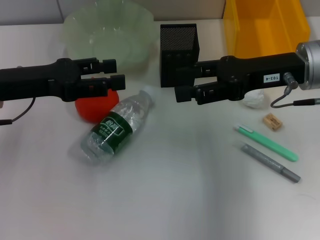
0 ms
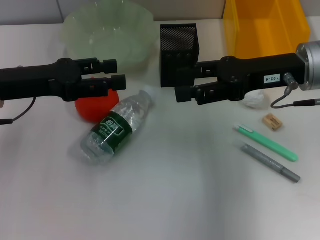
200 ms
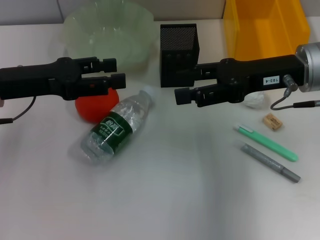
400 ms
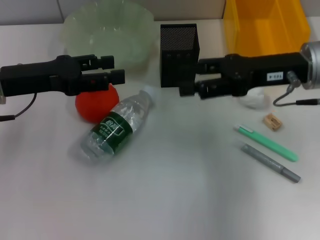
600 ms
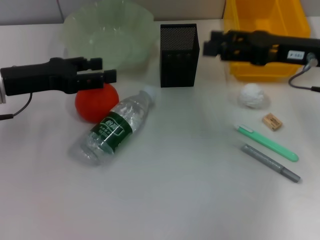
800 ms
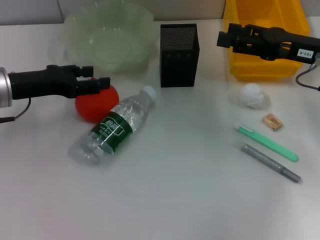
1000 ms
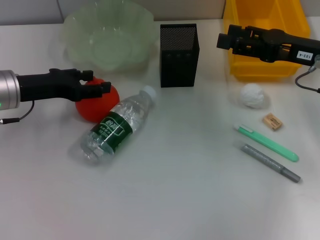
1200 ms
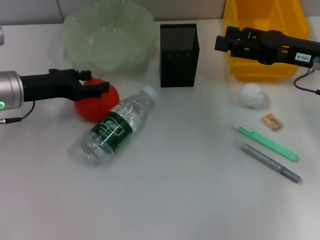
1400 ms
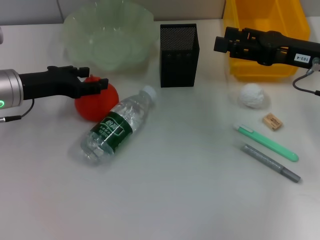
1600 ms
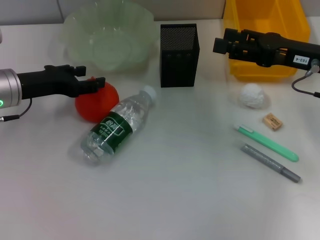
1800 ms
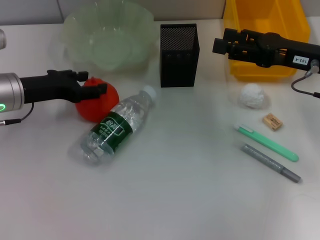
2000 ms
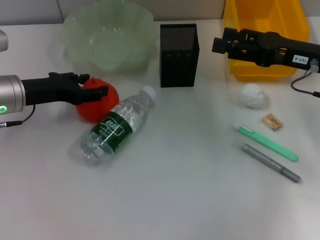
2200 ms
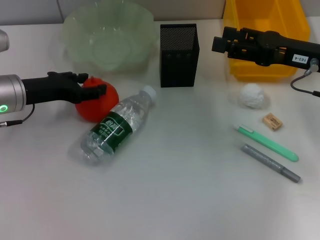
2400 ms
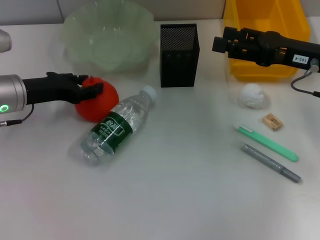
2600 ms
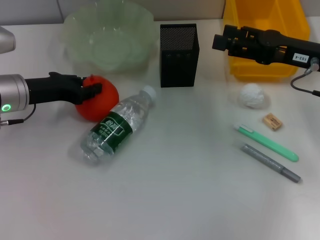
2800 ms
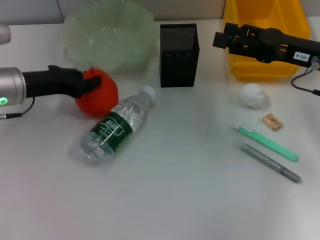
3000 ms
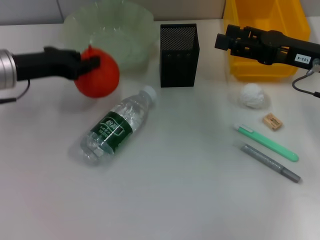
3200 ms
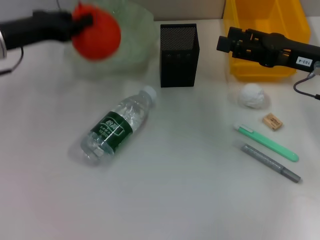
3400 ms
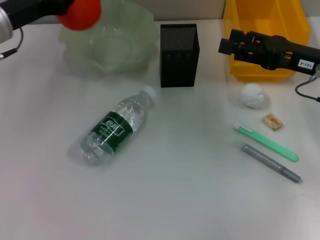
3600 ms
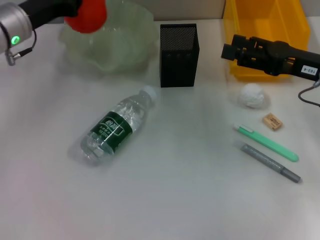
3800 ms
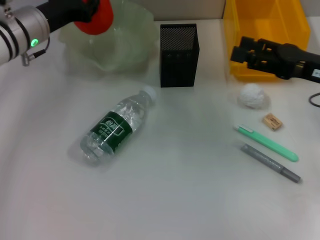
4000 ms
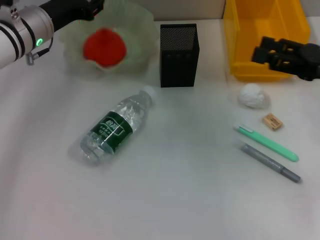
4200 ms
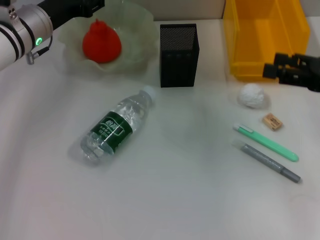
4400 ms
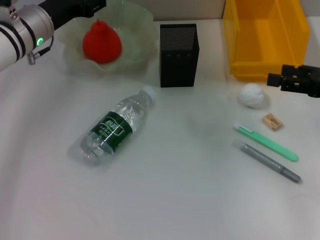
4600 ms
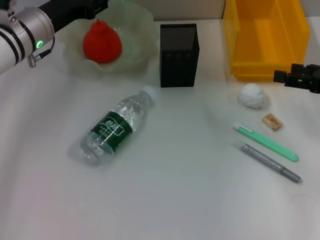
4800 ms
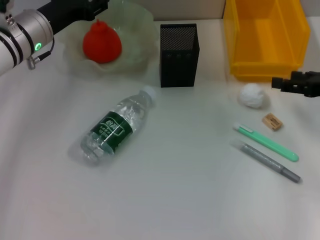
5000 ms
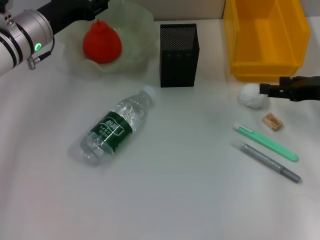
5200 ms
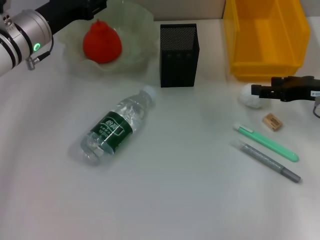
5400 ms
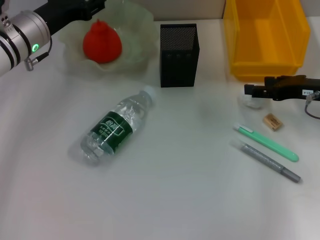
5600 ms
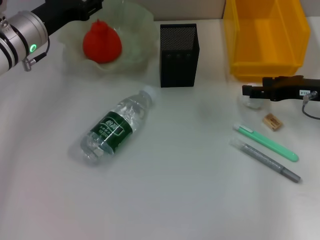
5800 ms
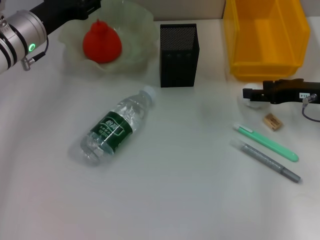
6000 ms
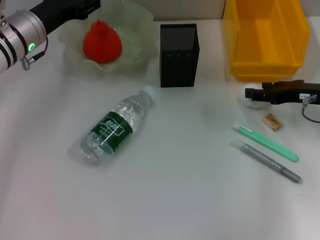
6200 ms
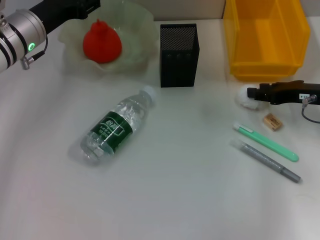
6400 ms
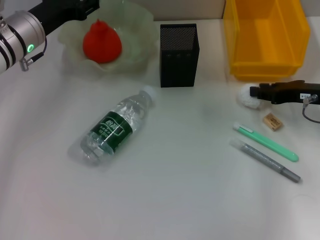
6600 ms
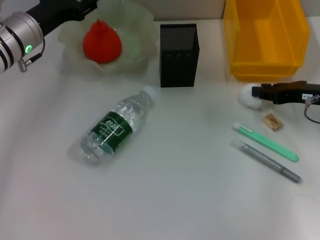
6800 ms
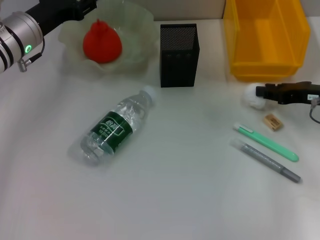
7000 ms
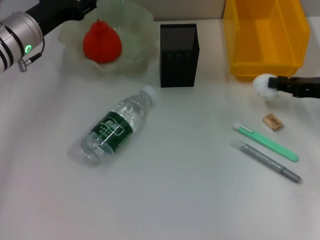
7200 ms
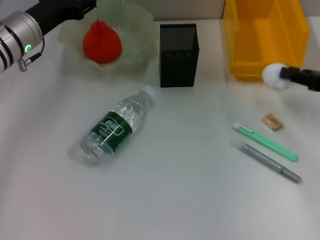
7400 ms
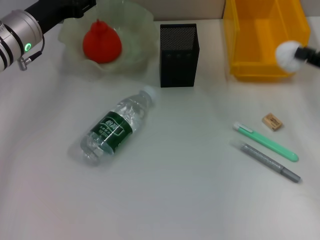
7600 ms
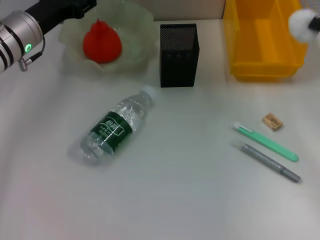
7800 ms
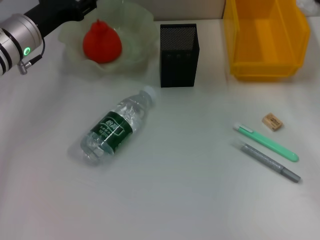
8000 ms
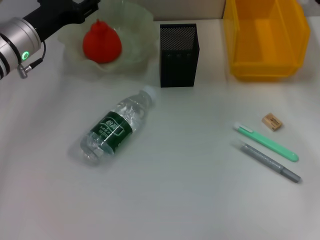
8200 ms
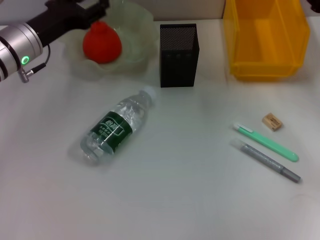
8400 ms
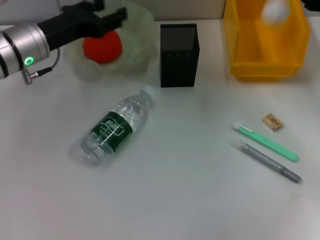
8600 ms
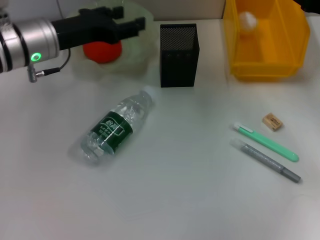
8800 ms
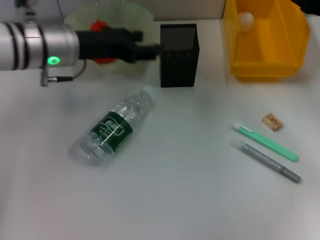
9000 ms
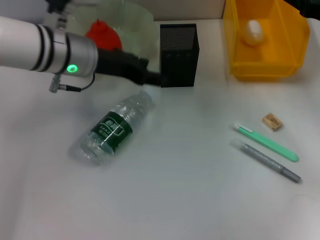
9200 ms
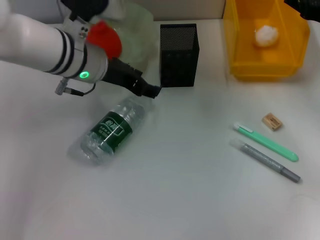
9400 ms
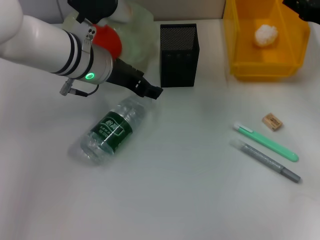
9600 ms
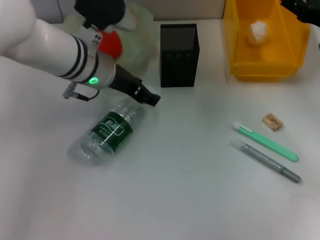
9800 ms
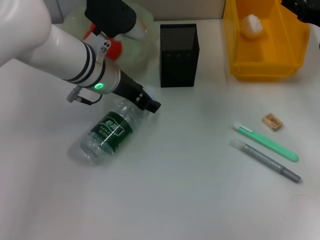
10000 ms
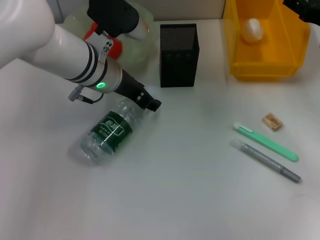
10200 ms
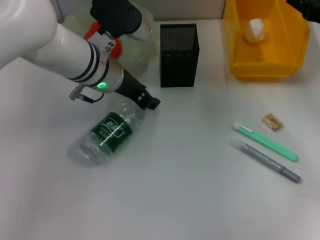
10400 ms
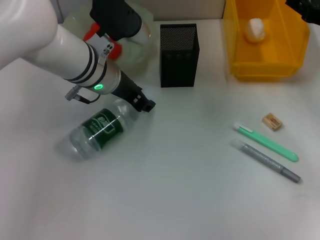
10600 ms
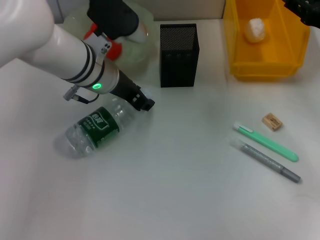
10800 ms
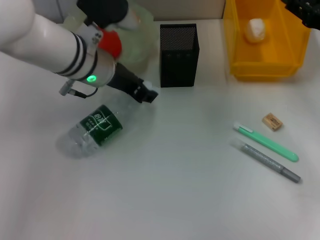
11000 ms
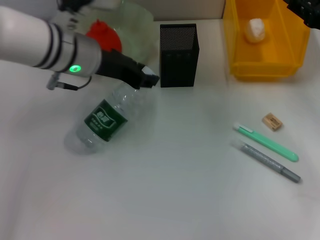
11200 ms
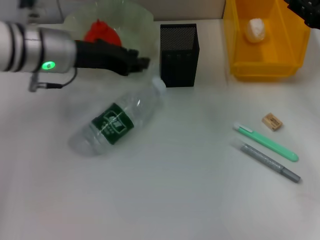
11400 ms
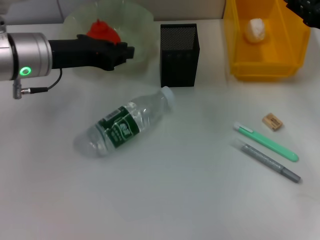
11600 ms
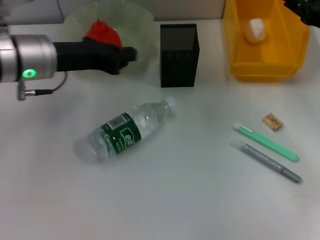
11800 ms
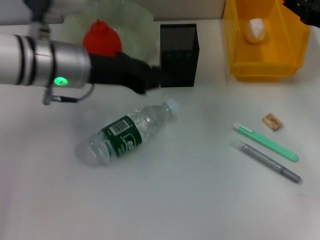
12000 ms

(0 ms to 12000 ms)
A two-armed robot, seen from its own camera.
Step, 0 ms - 2600 ms: Grab the orange with the left hand.
Step, 3000 ms - 4400 ms: Place the orange into the fruit bowl with the left hand.
Step, 4600 ms - 6600 ms: Grab the paper ball with the right hand.
Step, 7000 ms - 8800 ms: Place the paper ball into the trash can with the right hand.
0 ms - 1600 ms: The right gripper goes some 5 cm to the right; the left gripper is displaced downward by approximately 5 cm.
1600 ms - 3000 ms: The left gripper closes up.
3000 ms - 4400 ms: The right gripper heads to the right, covering some 5 cm. Meanwhile the left gripper is displaced forward by some 5 cm, and opens.
4400 ms - 6000 ms: The right gripper is displaced downward and forward by some 10 cm.
6000 ms - 7600 ms: The right gripper goes some 5 cm to the right, and closes.
7600 ms - 9000 ms: The right gripper moves forward, approximately 10 cm, and opens its fingers; the left gripper goes roughly 5 cm to the right.
9000 ms - 10400 ms: The left gripper is displaced to the right by approximately 5 cm.
10400 ms - 12000 ms: The left gripper heads to the left, covering some 5 cm, and closes up.

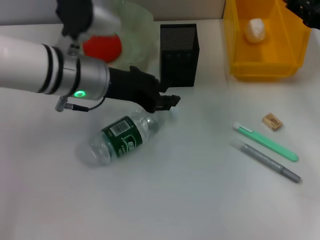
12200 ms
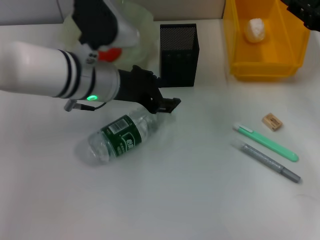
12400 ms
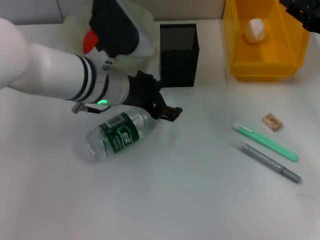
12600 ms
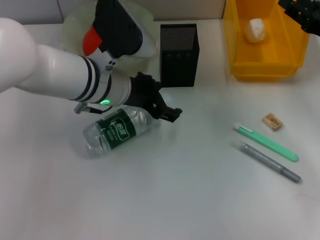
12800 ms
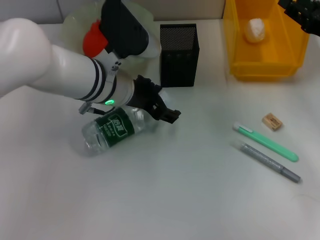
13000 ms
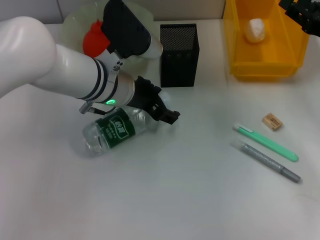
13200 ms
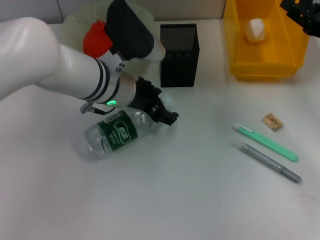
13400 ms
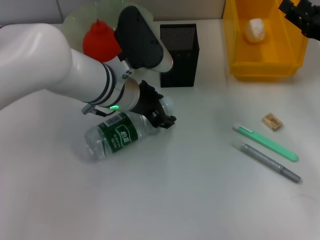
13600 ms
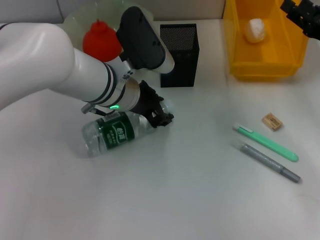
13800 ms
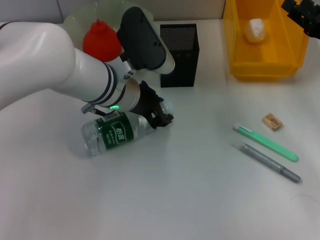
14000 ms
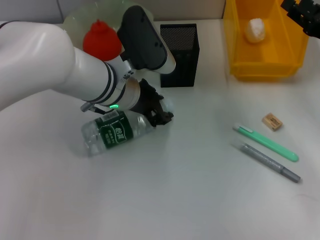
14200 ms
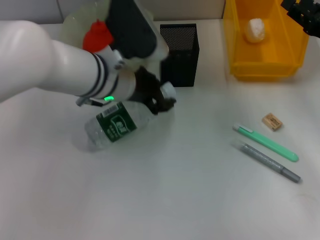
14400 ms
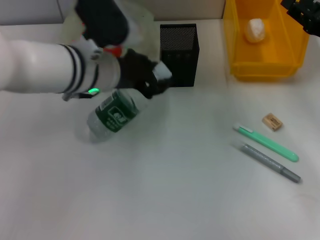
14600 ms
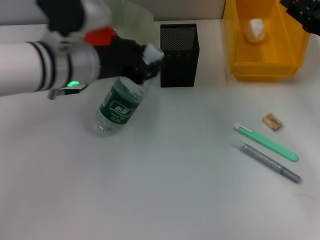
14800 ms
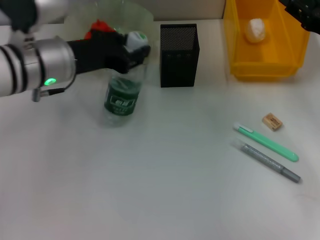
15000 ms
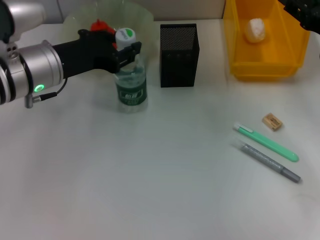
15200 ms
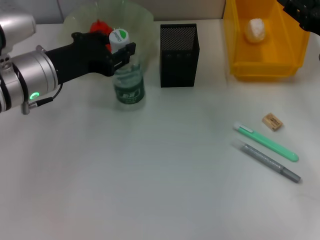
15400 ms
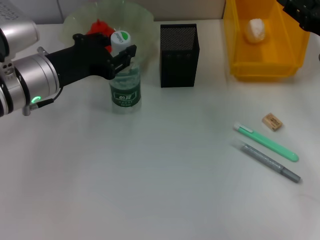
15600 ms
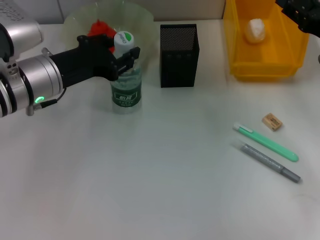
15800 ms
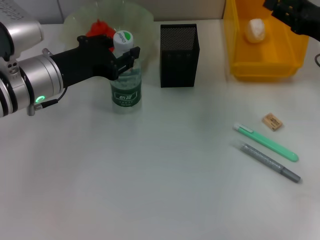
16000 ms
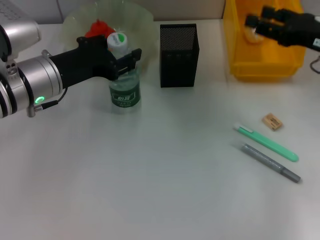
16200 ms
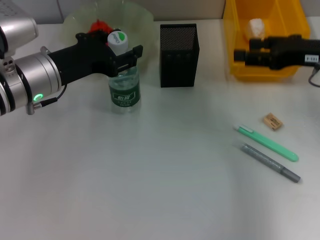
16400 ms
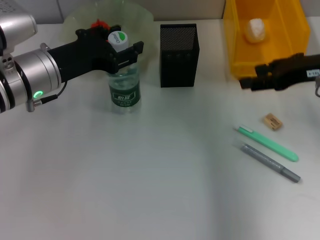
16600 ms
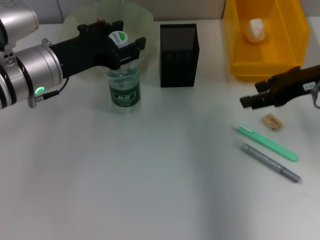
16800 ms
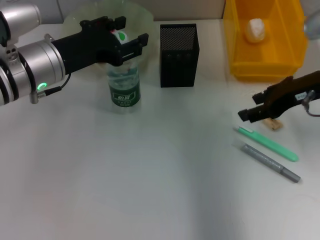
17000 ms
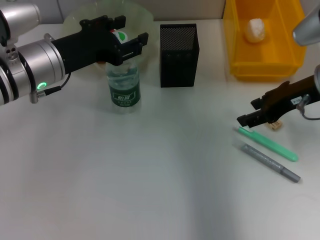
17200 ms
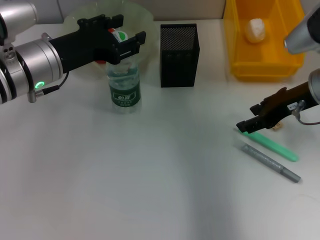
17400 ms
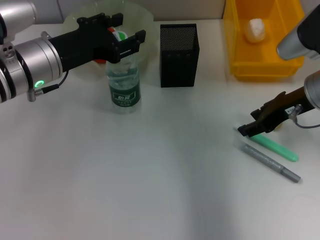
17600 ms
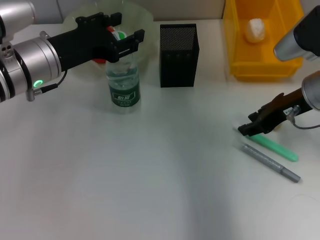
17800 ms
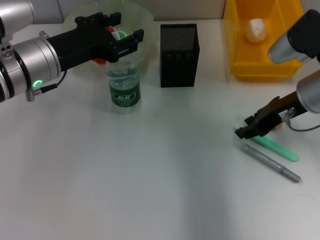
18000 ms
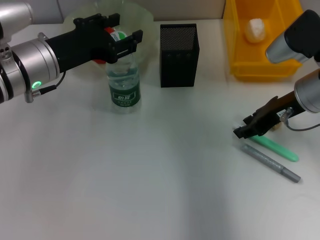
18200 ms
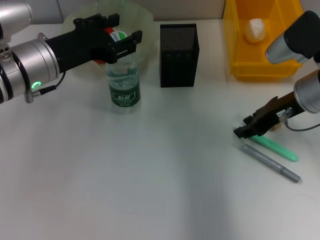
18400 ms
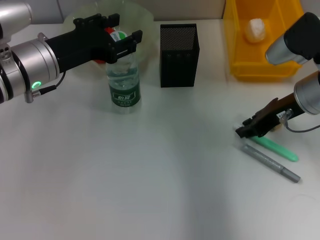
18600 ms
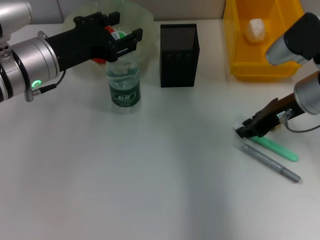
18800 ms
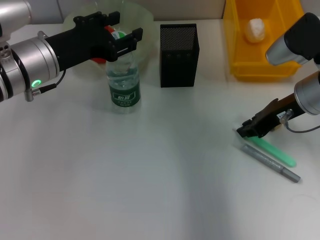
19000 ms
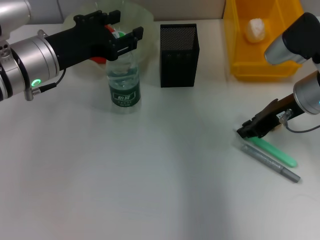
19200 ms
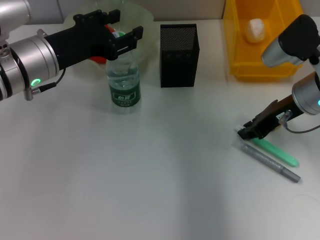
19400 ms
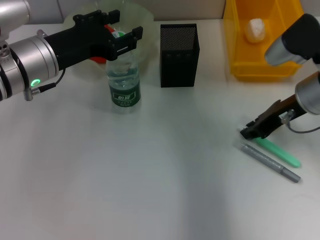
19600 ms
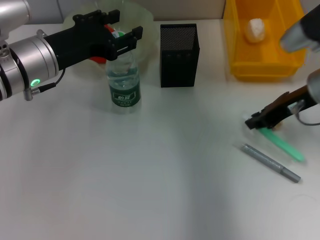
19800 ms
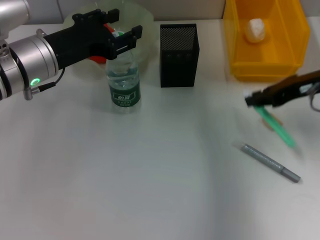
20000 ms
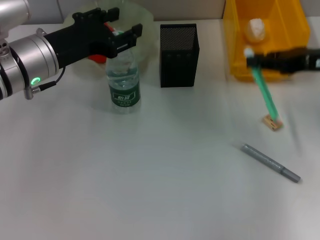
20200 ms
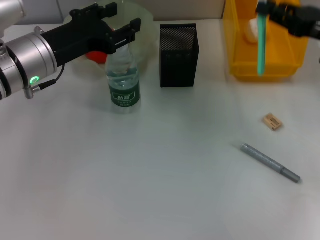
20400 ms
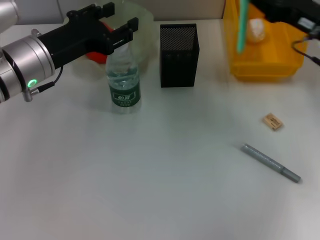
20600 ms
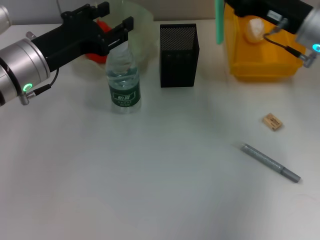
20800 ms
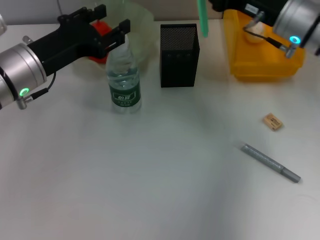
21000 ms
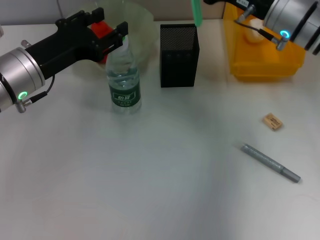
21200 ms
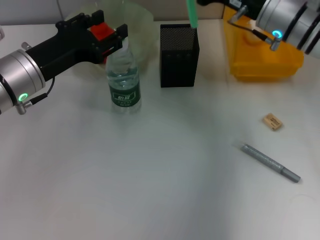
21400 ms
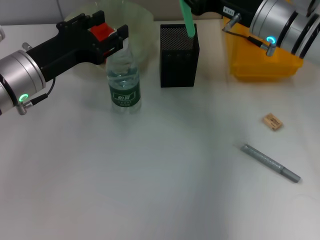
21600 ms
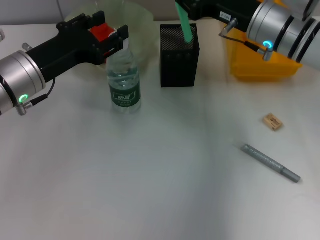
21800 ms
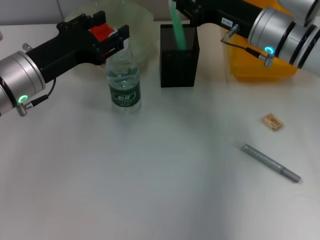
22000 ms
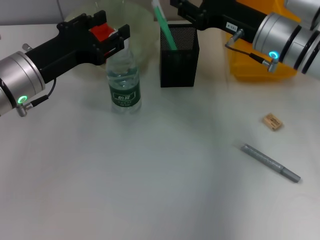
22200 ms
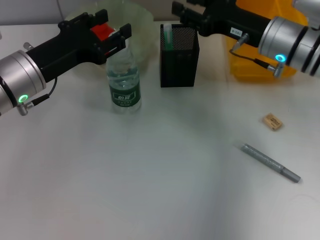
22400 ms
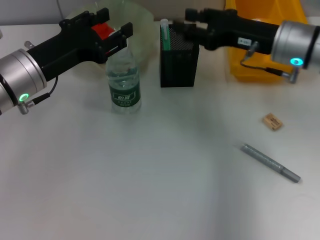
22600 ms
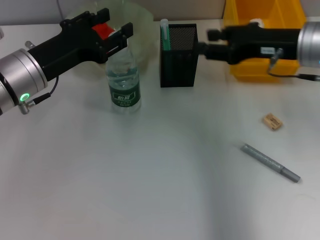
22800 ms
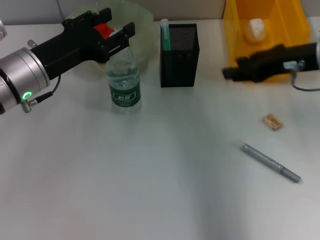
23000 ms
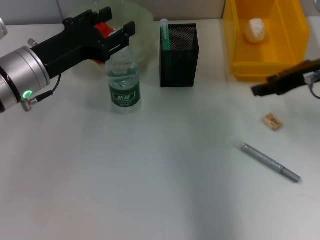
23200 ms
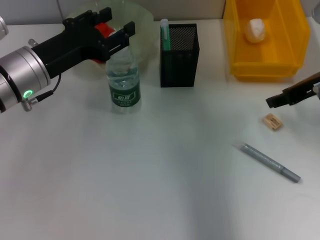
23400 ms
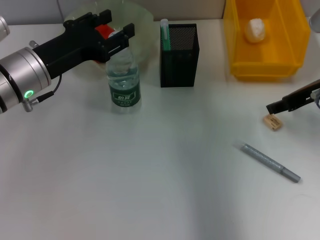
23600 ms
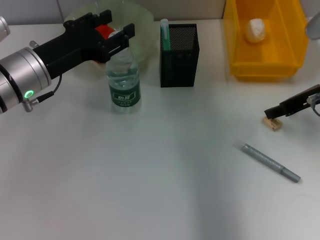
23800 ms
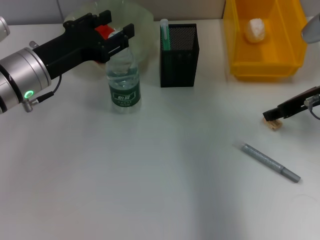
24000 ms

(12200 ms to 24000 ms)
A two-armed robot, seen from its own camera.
Step, 14200 ms - 16400 ms: Place the water bottle on the table with the left hand.
Step, 16800 ms - 19200 ms: Grab the blue utility knife with the right hand.
Step, 19400 ms - 22600 ms: Place the blue utility knife into the pen holder with the right hand.
12200 ms - 13600 ms: The left gripper ends up approximately 5 cm from where it was, and opens its fingers.
13600 ms - 15200 ms: The left gripper moves to the left, approximately 10 cm, and closes its fingers.
15200 ms - 16600 ms: The right gripper is displaced upward by approximately 5 cm.
16600 ms - 18200 ms: The right gripper heads downward, covering some 5 cm.
18200 ms - 19600 ms: The right gripper closes up.
19600 ms - 21000 ms: The right gripper reaches some 5 cm to the right, then returns.
21000 ms - 22600 ms: The right gripper opens up.
22600 ms - 24000 ms: The right gripper moves to the right, some 5 cm.
